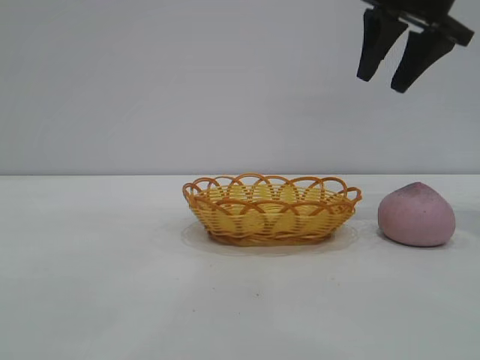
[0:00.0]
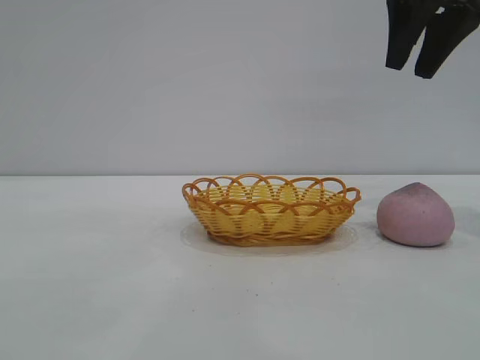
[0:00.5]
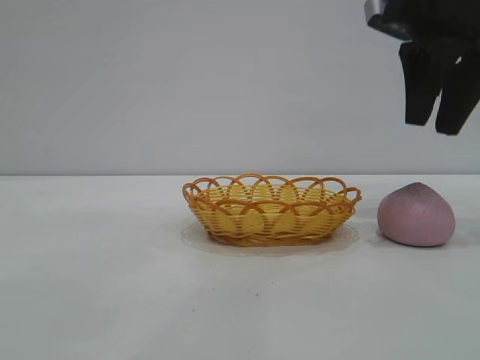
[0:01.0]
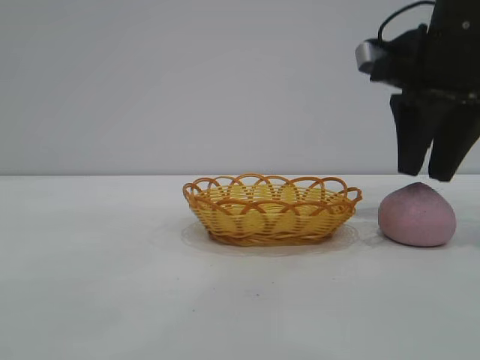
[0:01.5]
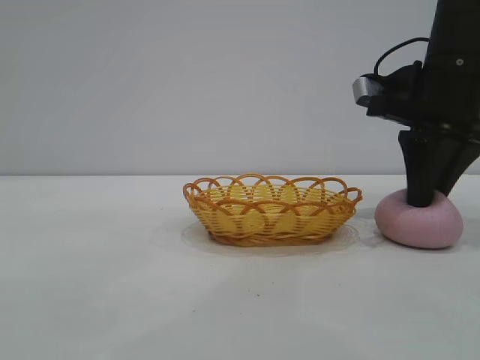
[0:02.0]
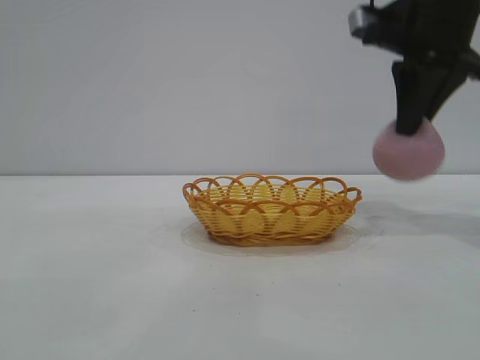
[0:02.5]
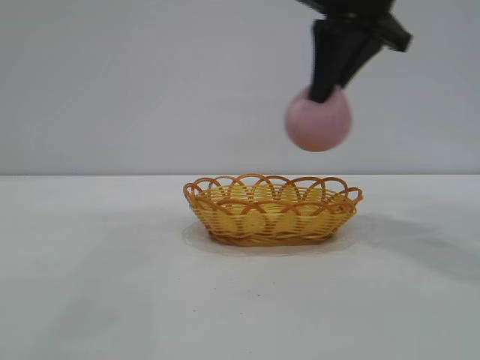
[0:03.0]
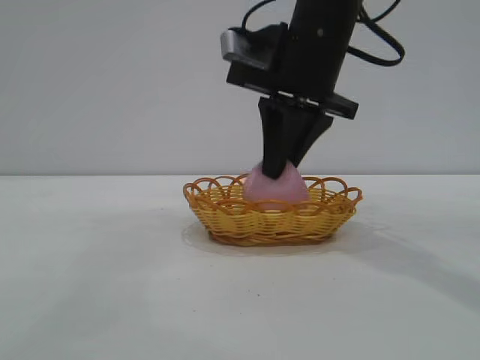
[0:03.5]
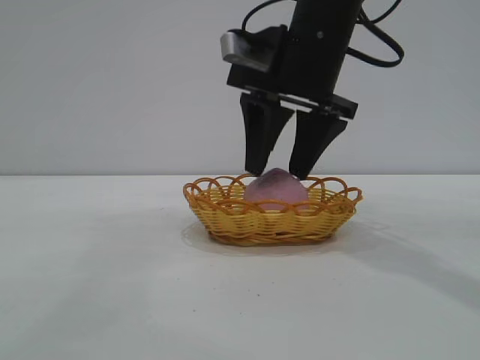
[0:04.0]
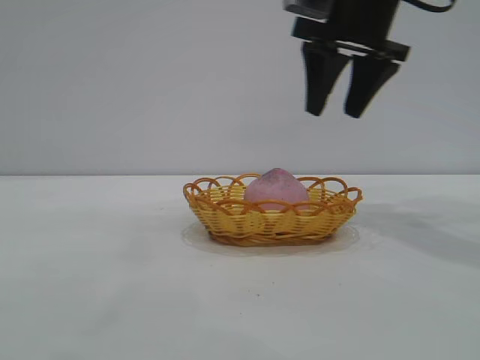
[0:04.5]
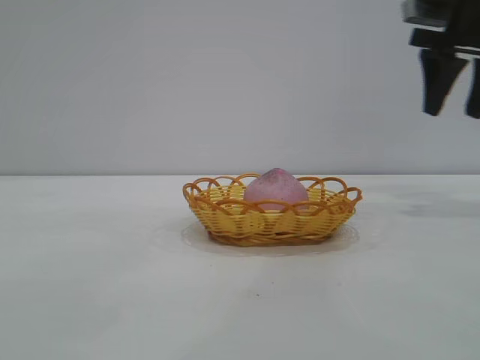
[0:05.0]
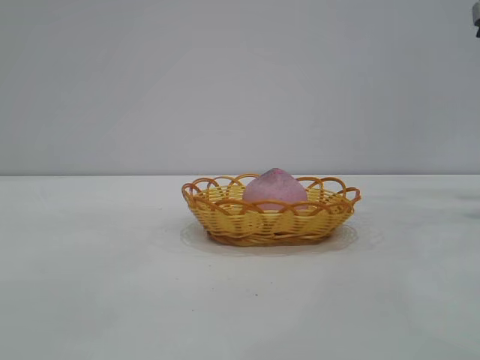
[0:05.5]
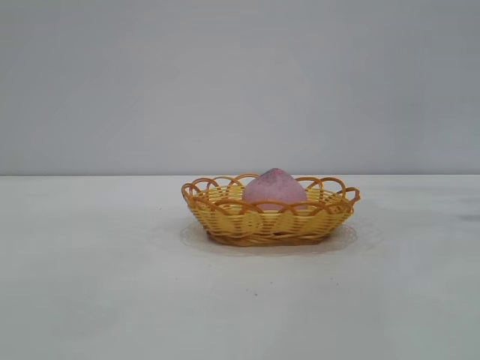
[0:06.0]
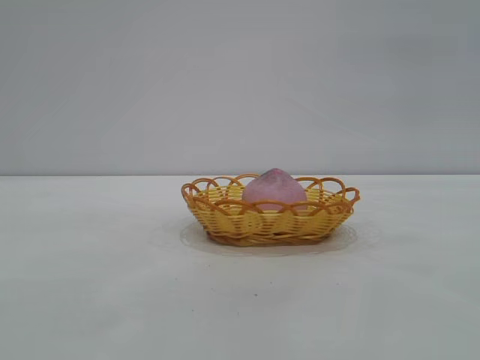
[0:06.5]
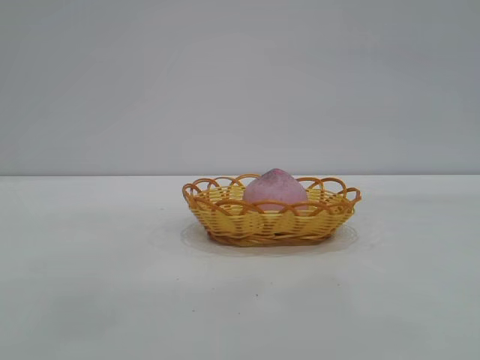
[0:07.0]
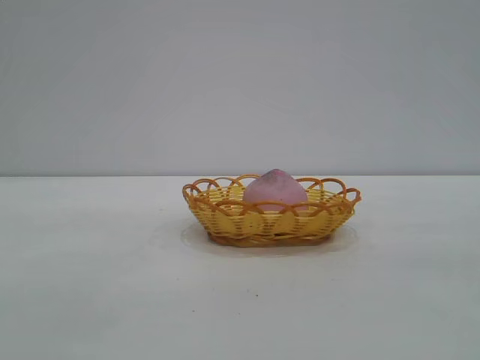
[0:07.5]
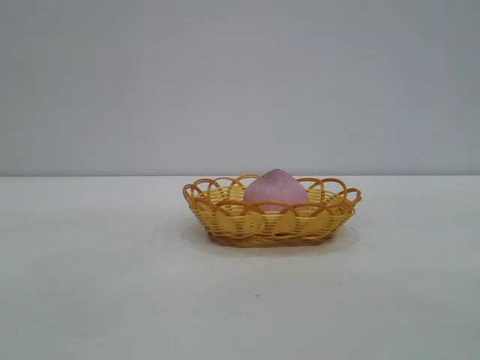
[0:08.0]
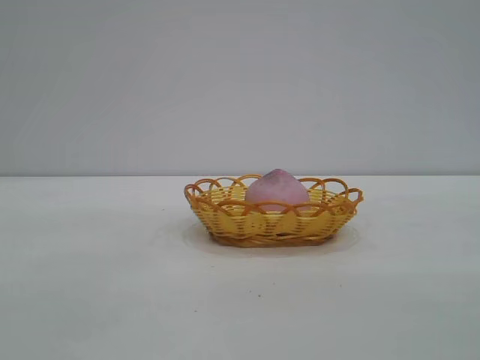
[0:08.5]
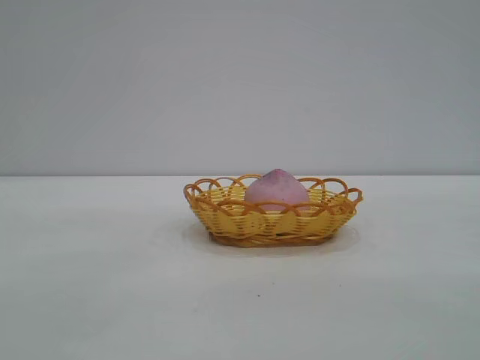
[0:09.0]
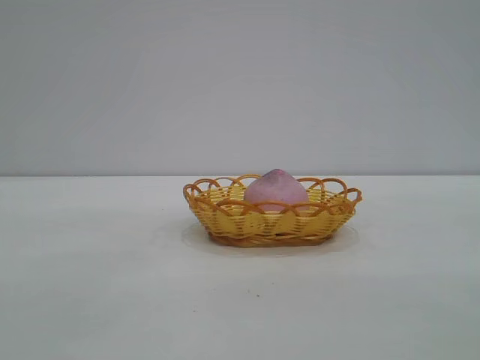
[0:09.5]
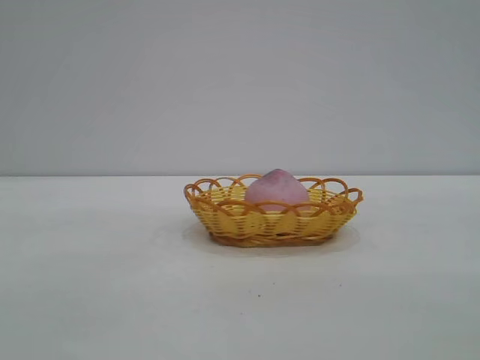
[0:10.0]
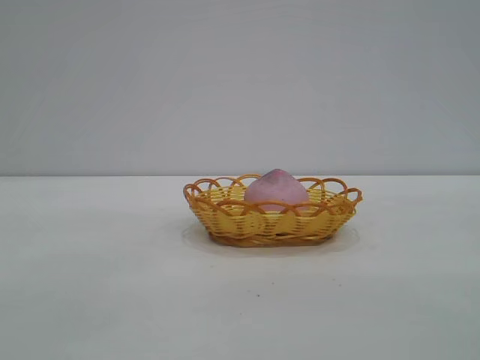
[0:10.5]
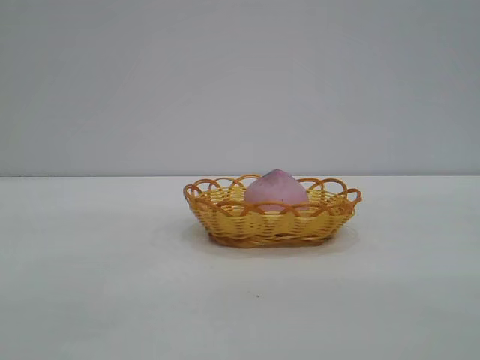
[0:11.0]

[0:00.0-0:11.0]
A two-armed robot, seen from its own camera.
Task of the whole recording: pick up the peach and put it into the basket.
Step, 0:00.0 to 0:02.5: Pick up the peach.
Step, 0:03.0 to 0:04.0: place the peach into the basket.
